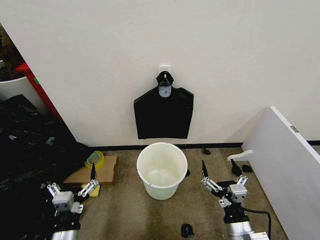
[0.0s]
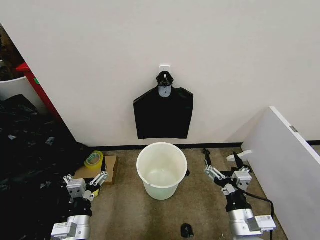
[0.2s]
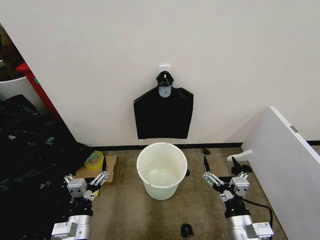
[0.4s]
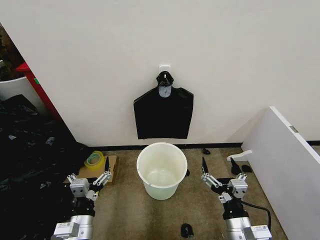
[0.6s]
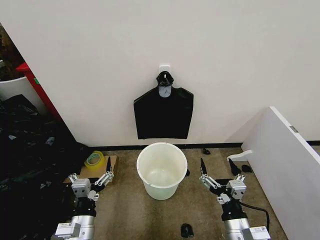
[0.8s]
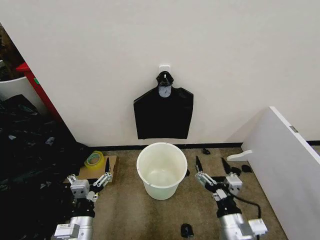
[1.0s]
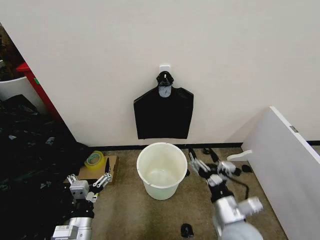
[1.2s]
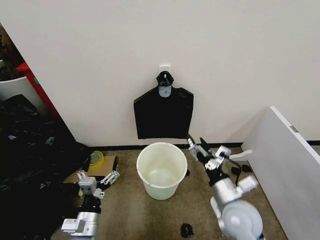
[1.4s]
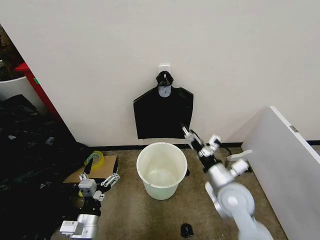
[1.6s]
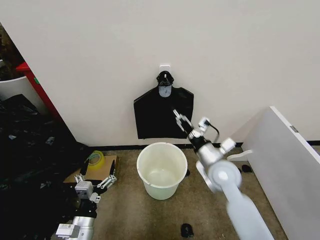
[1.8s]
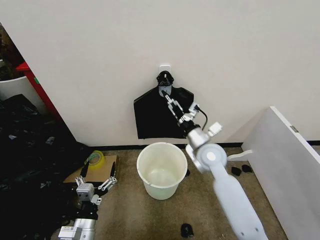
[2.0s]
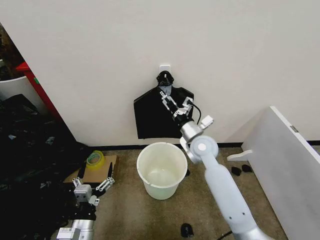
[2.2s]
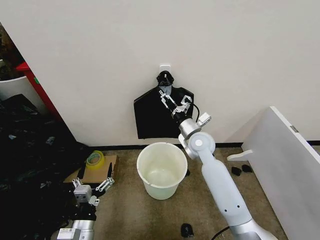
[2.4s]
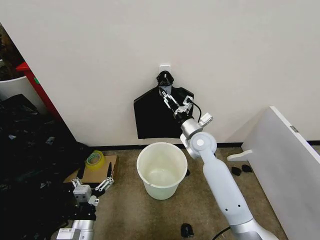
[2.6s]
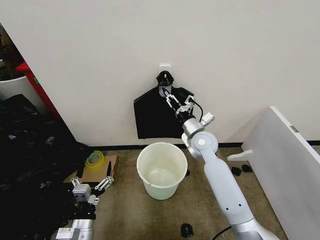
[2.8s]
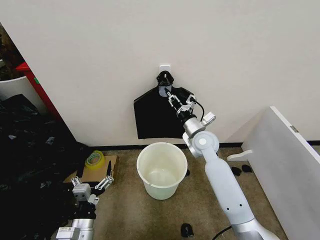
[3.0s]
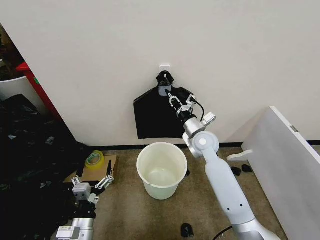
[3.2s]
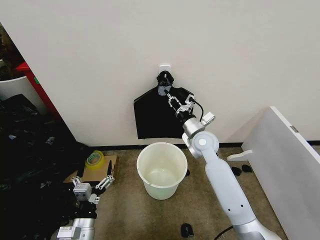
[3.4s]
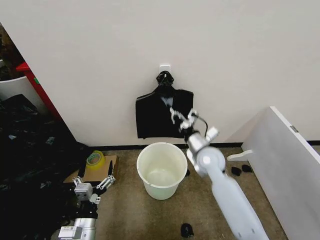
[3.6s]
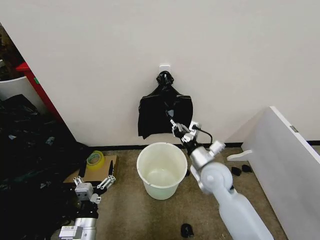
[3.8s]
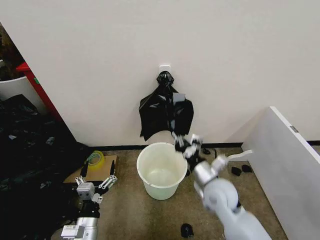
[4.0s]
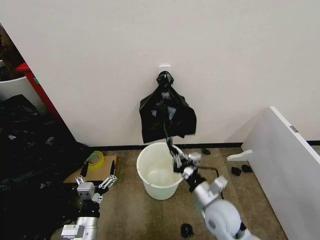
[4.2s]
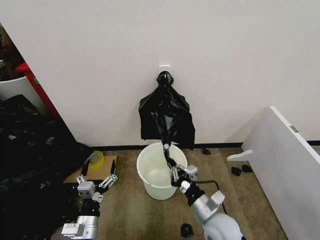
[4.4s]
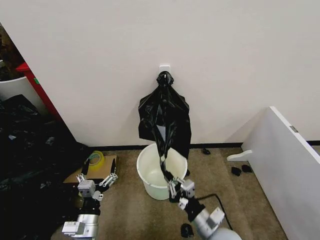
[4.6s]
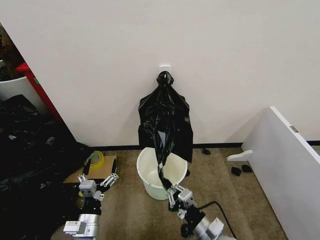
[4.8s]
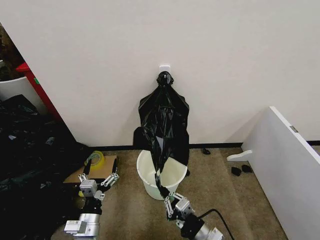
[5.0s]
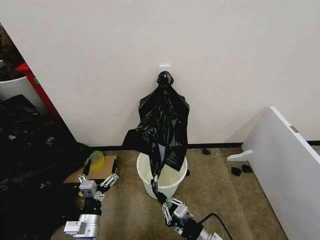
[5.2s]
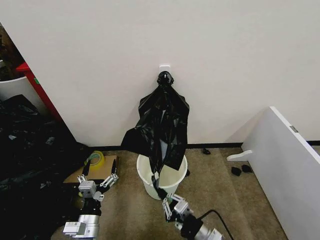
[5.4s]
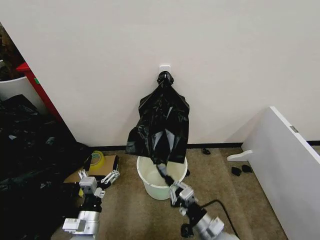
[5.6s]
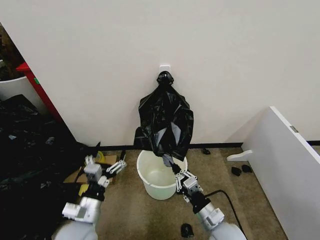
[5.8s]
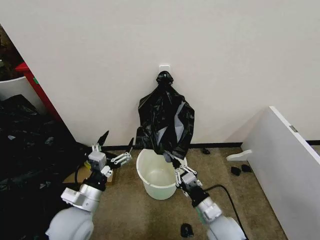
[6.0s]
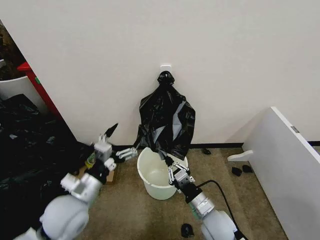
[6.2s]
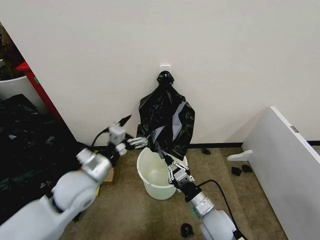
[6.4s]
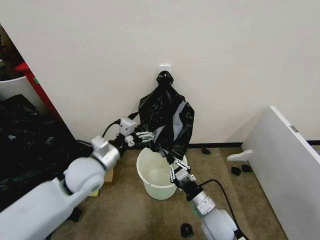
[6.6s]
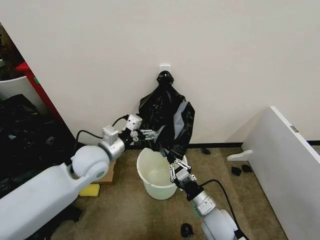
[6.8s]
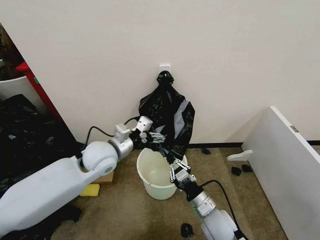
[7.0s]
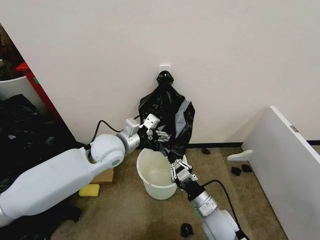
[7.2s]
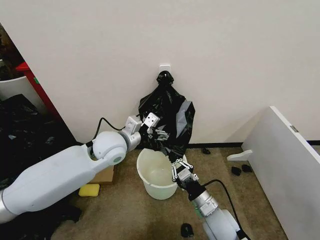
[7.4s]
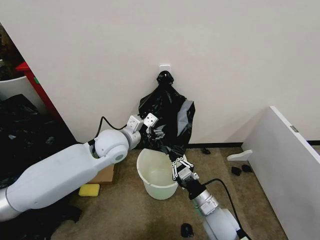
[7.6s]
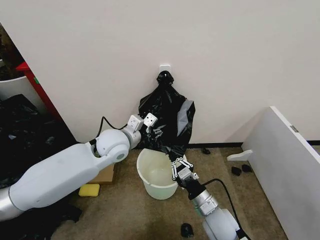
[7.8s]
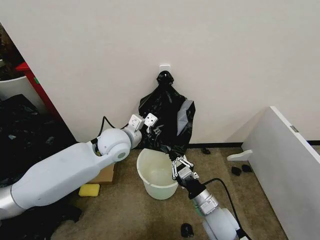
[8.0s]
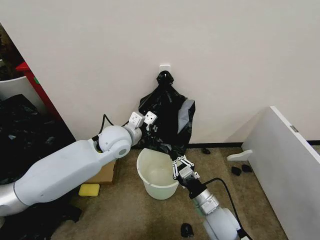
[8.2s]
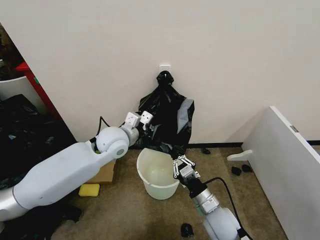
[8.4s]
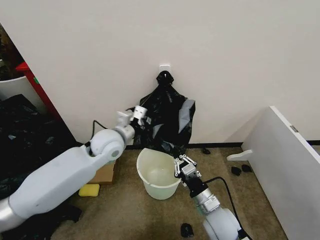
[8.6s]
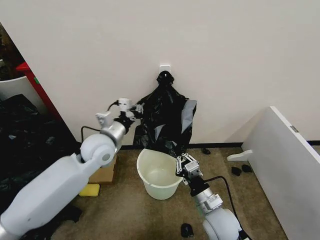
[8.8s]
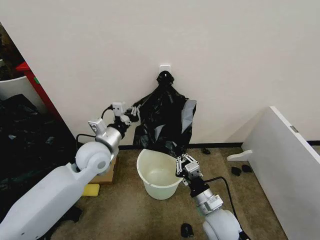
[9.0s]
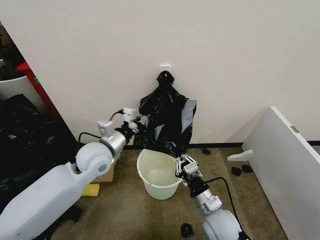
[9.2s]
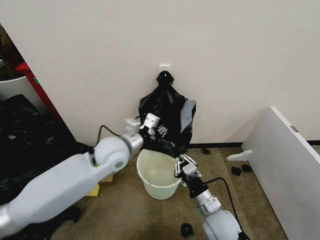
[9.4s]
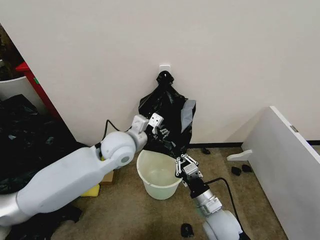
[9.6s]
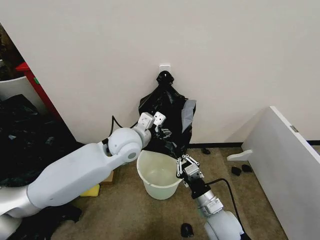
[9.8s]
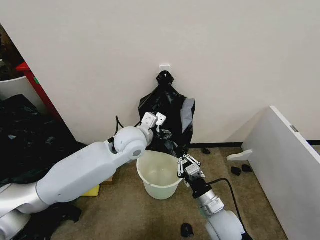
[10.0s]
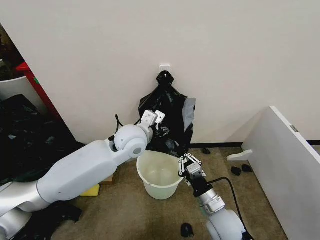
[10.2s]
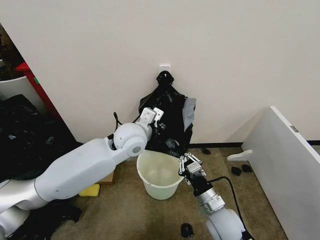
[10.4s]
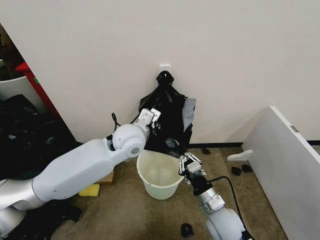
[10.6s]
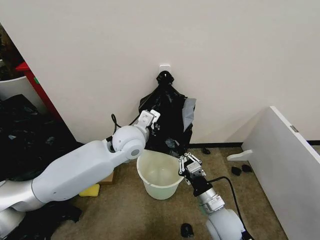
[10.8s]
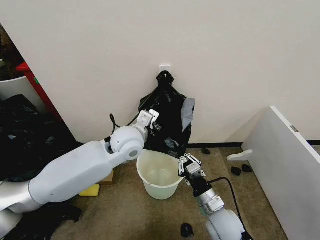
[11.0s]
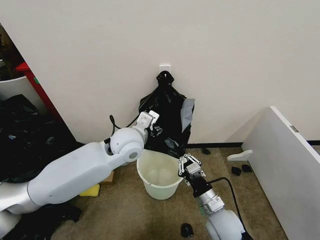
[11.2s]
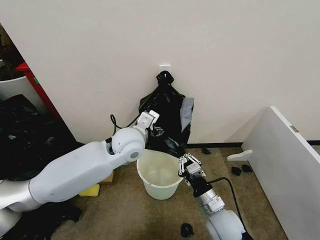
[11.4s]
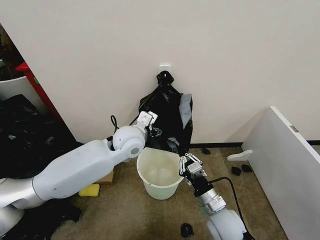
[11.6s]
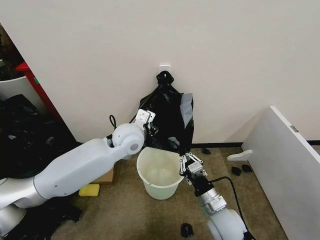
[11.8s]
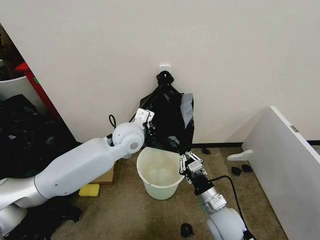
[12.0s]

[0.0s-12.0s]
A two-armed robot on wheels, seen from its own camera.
Task of the whole recording: Place the garbage bag over the trash bin.
1.6s to 3.0s: The right gripper goes roughly 20 cm forward, and closes its fingers.
3.0s to 4.4s: The right gripper heads backward and downward, covering roughly 25 cm.
4.4s to 6.0s: The left gripper travels upward and forward by approximately 10 cm.
6.0s to 7.6s: The left gripper moves forward, upward and to the right, some 25 cm.
7.6s to 9.0s: The left gripper shifts about 5 cm to the left, and closes.
9.0s to 10.4s: The left gripper heads to the right, covering some 10 cm, and opens.
10.4s to 12.0s: The left gripper opens, then closes once more.

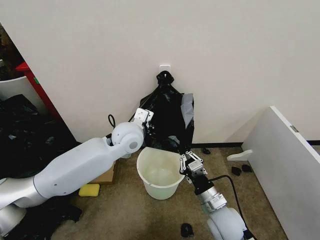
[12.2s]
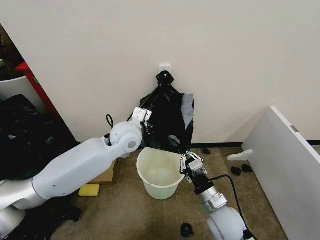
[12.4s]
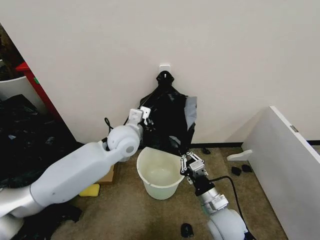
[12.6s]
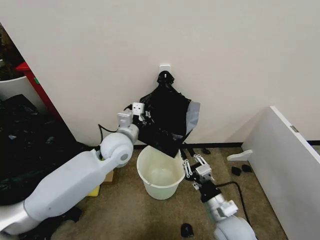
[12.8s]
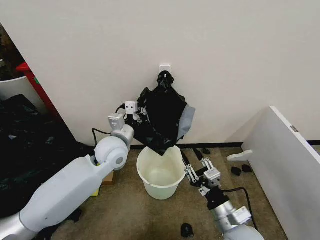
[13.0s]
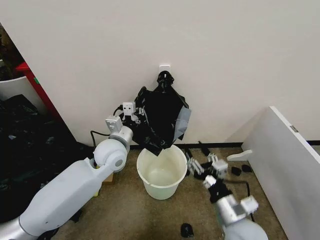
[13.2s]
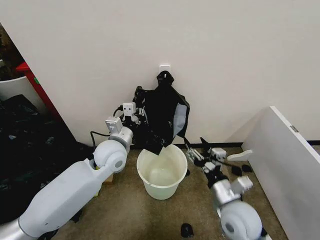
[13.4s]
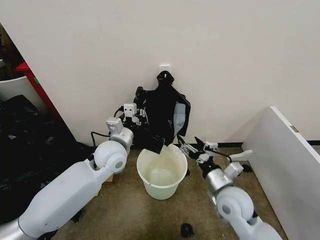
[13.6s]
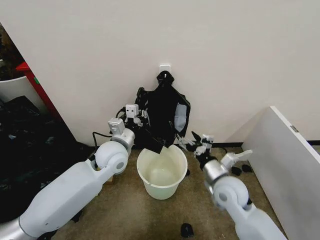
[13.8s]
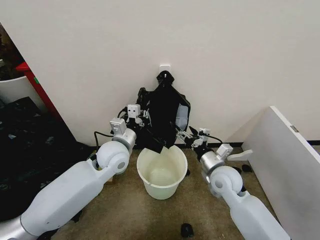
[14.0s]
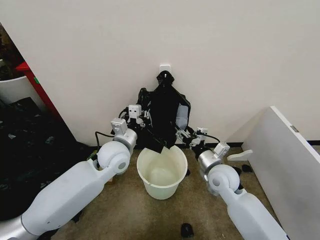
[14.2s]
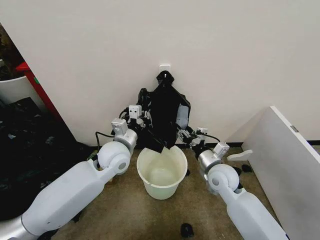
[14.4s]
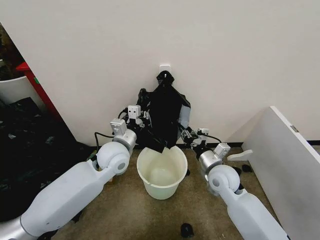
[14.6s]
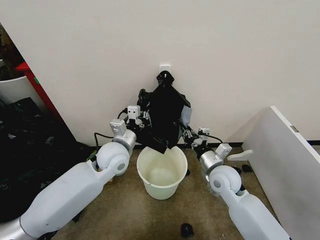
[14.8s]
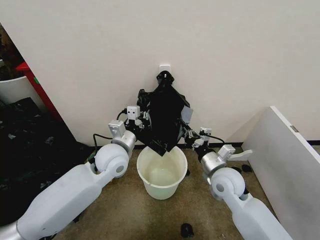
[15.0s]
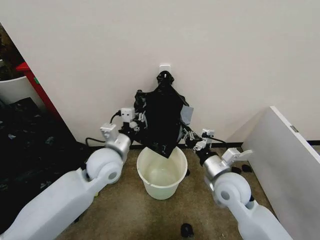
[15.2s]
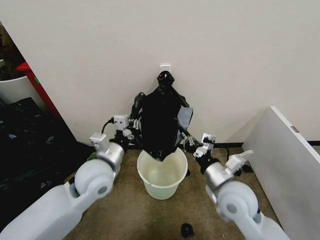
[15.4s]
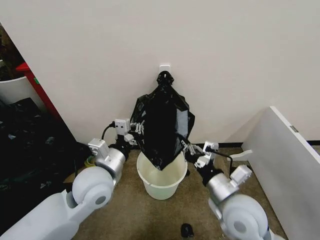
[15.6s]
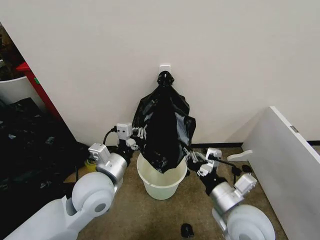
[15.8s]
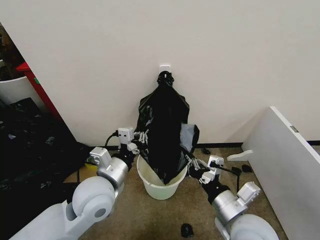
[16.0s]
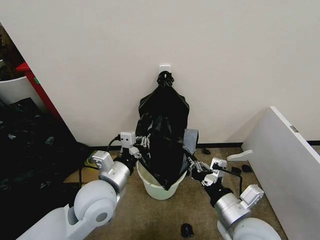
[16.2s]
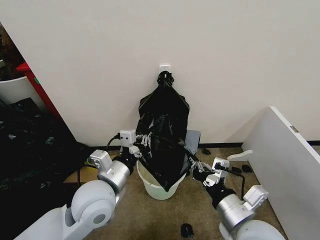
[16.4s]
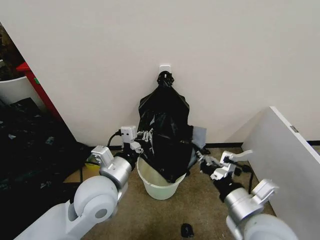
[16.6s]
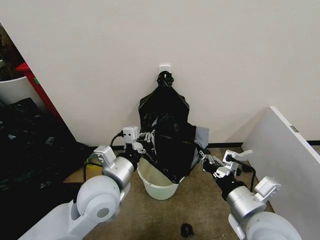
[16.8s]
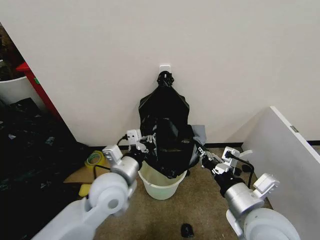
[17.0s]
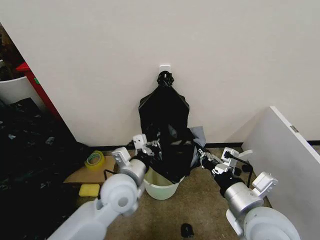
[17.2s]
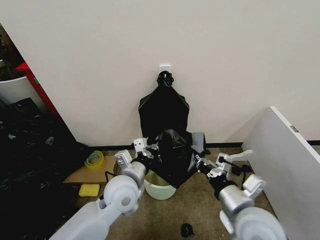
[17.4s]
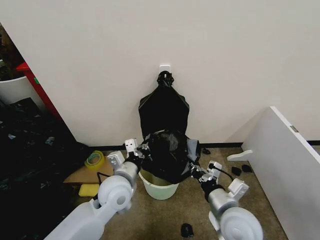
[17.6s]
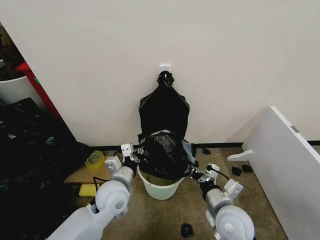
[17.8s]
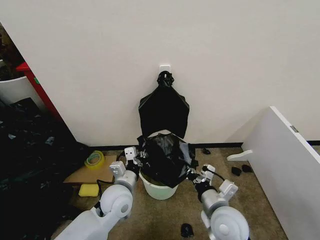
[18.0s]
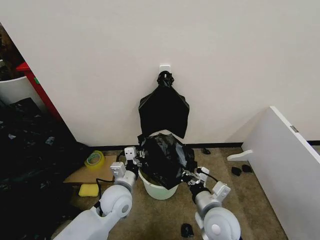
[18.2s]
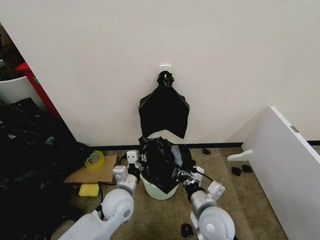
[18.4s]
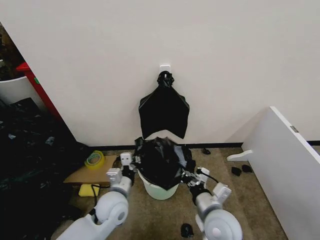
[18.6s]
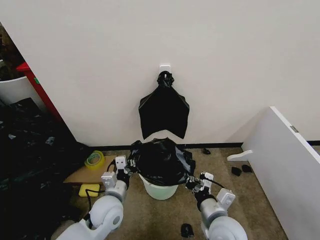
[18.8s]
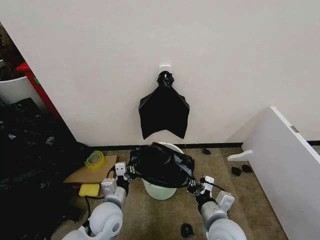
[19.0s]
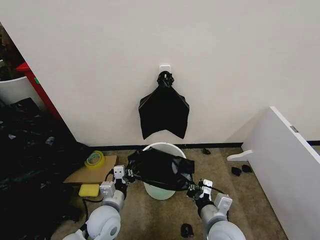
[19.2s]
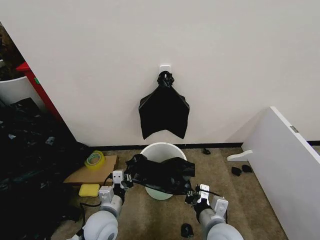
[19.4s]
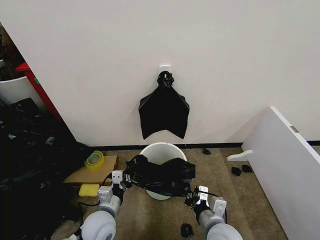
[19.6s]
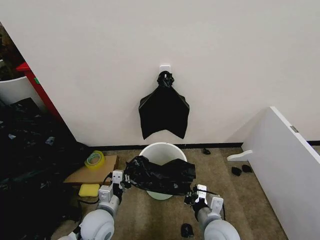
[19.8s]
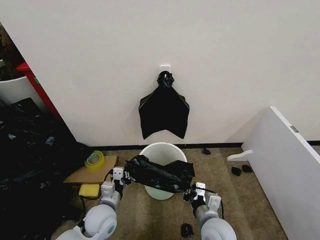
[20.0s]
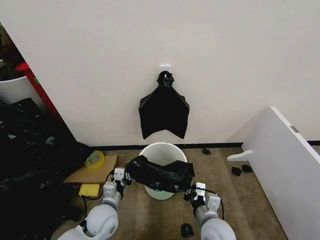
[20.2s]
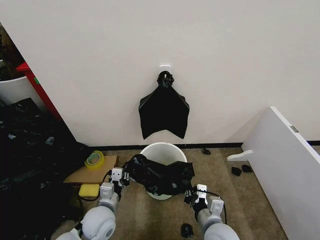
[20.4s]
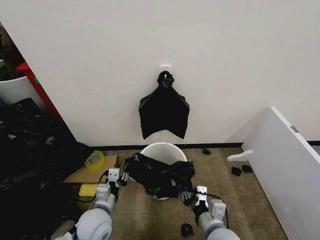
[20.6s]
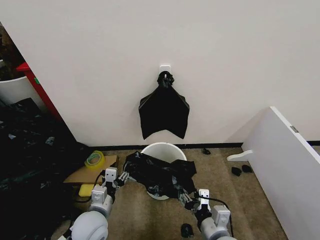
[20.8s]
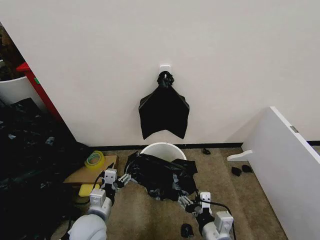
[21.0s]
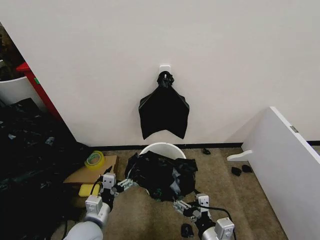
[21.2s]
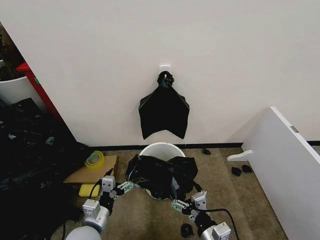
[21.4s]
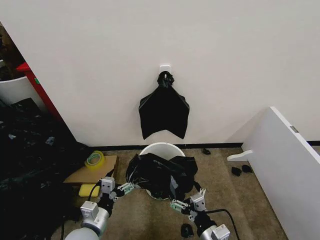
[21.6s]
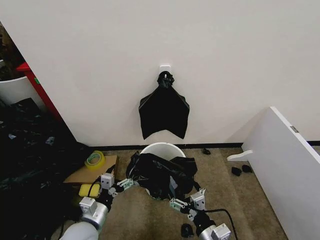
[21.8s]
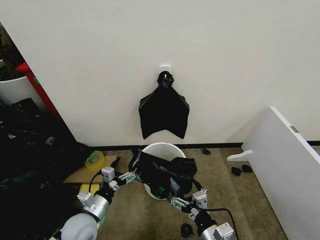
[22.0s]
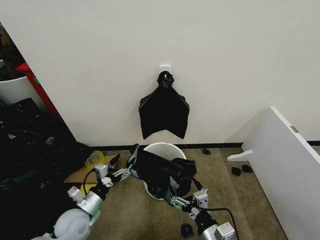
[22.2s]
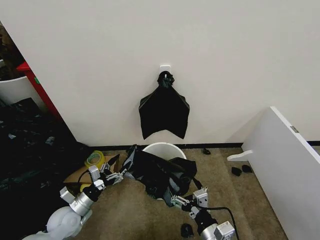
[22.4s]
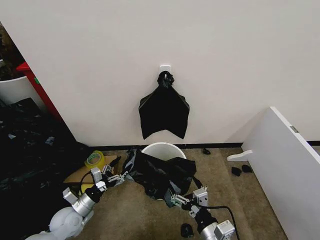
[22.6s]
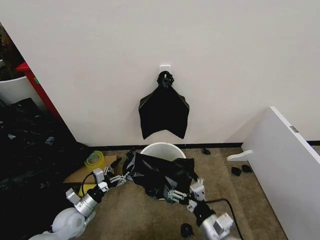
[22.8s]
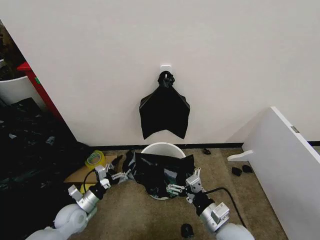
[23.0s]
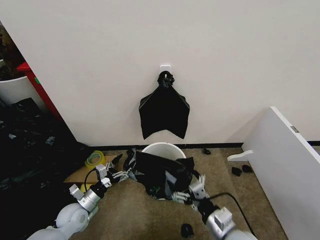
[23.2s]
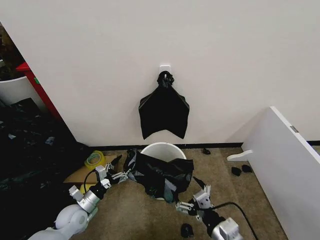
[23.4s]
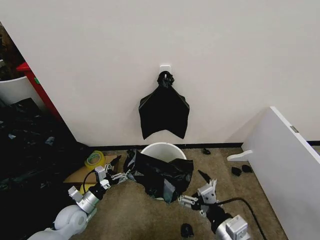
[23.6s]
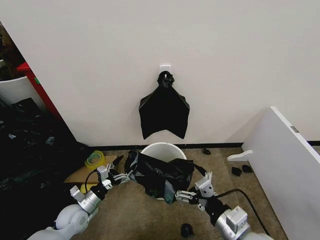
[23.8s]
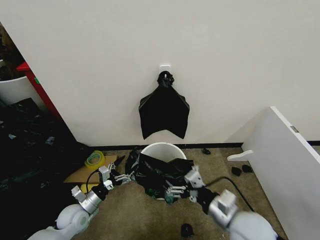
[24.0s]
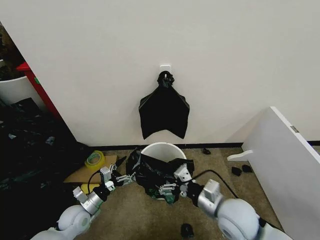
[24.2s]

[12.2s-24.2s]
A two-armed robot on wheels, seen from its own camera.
Task of the whole recording: Place the garbage bag over the trash bin.
12.2s to 13.8s: The left gripper changes place by approximately 10 cm. The right gripper travels forward by some 10 cm, and opens up.
13.8s to 15.2s: The right gripper closes up.
15.2s to 16.6s: The left gripper shifts about 10 cm backward; the right gripper moves backward and upward, roughly 15 cm.
16.6s to 18.2s: The right gripper shifts about 15 cm downward and forward; the left gripper is displaced downward by approximately 15 cm.
18.2s to 19.8s: The left gripper heads backward, to the left and downward, covering approximately 10 cm.
19.8s to 21.2s: The right gripper goes approximately 5 cm backward, and opens its fingers. Meanwhile the left gripper ends up about 5 cm from where it was, and opens up.
21.2s to 22.6s: The left gripper goes about 15 cm to the left, forward and downward.
22.6s to 24.2s: The right gripper goes forward and backward, roughly 10 cm each way, reversing 2 times.
